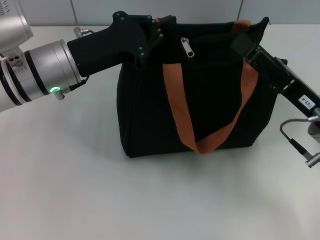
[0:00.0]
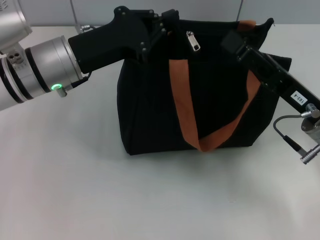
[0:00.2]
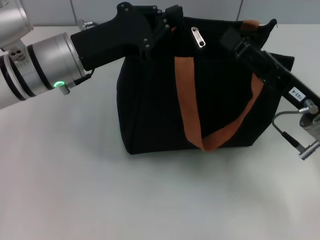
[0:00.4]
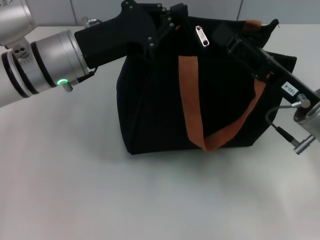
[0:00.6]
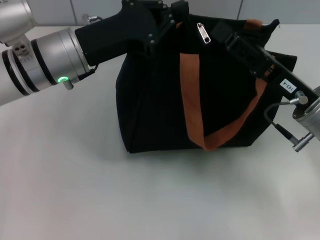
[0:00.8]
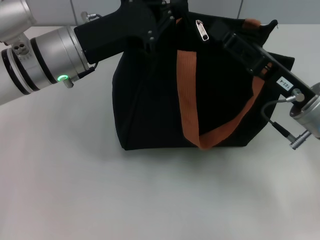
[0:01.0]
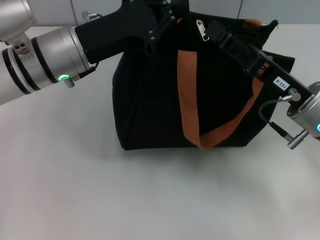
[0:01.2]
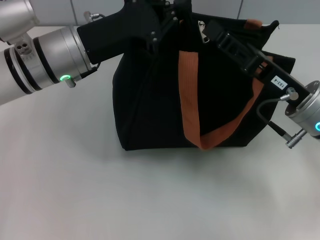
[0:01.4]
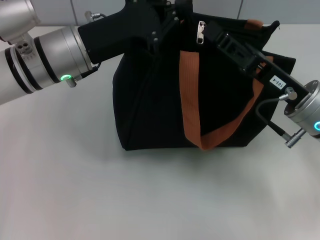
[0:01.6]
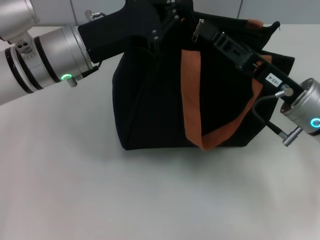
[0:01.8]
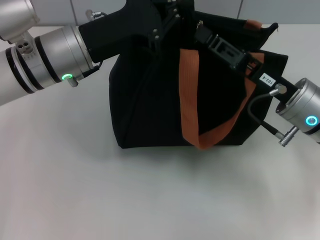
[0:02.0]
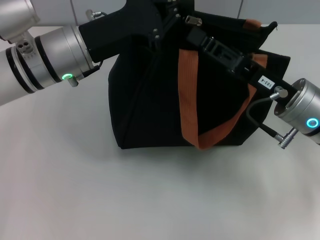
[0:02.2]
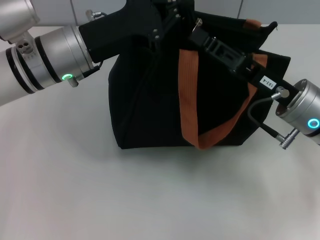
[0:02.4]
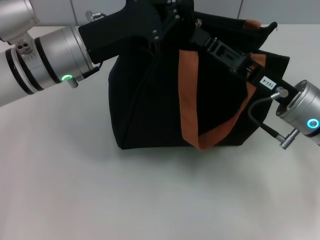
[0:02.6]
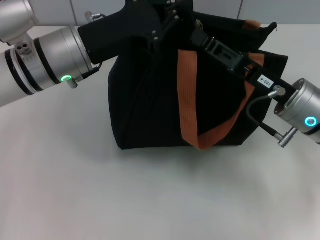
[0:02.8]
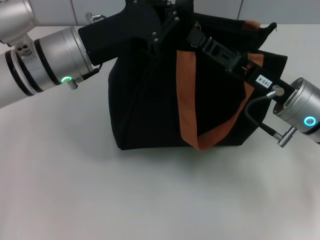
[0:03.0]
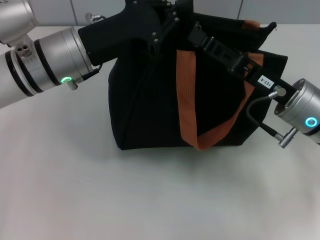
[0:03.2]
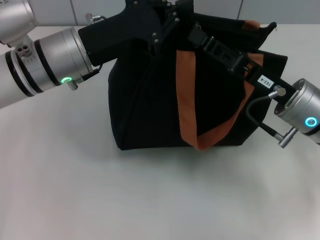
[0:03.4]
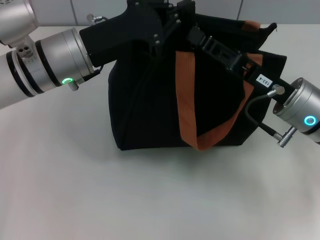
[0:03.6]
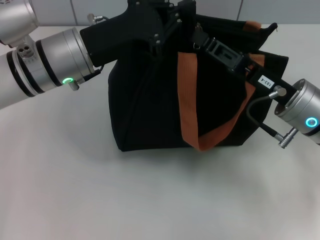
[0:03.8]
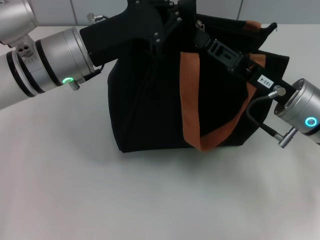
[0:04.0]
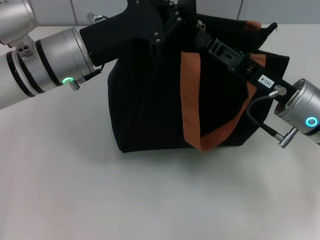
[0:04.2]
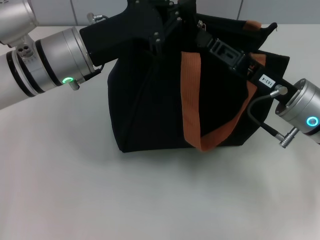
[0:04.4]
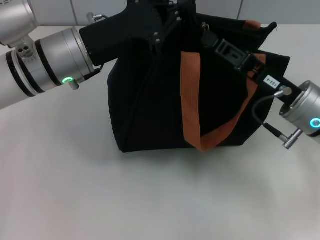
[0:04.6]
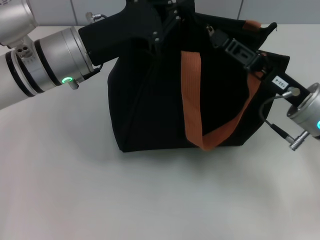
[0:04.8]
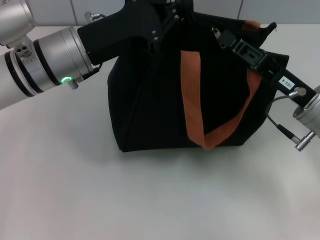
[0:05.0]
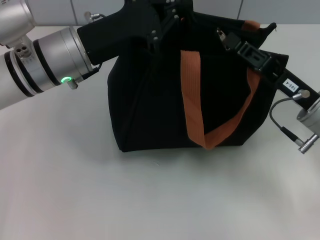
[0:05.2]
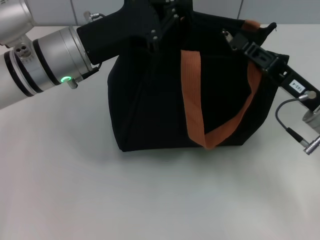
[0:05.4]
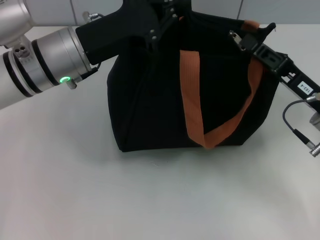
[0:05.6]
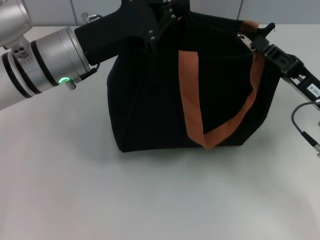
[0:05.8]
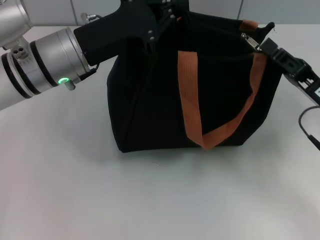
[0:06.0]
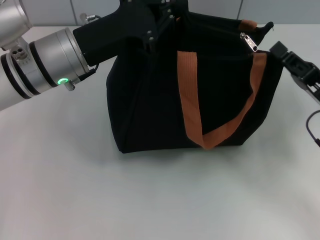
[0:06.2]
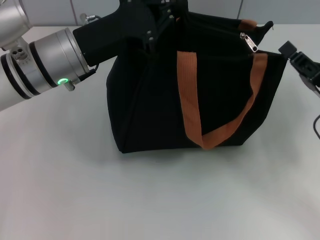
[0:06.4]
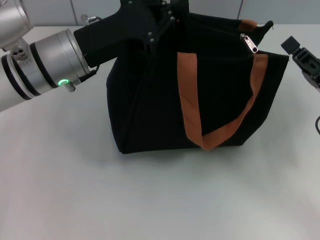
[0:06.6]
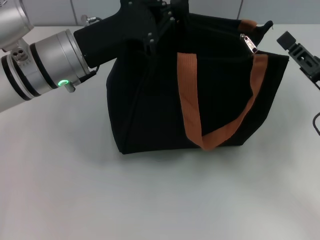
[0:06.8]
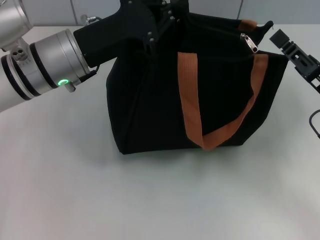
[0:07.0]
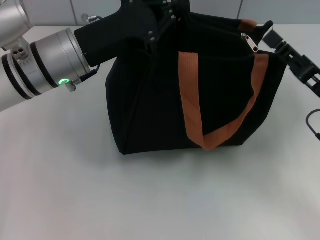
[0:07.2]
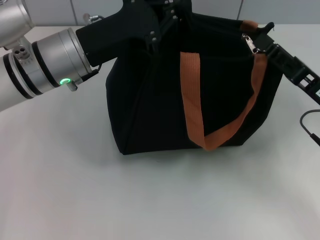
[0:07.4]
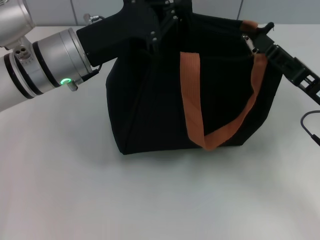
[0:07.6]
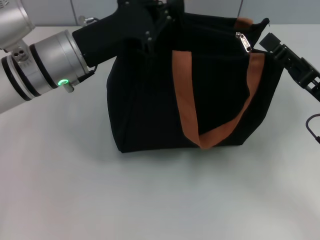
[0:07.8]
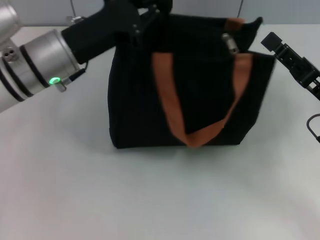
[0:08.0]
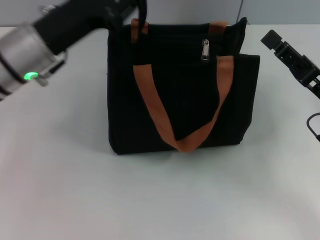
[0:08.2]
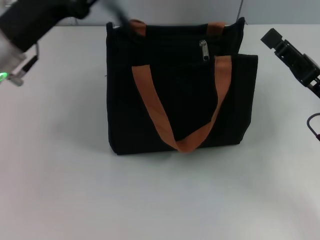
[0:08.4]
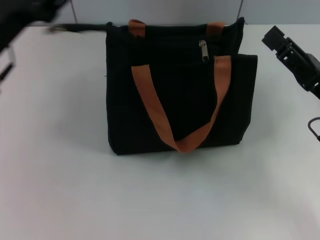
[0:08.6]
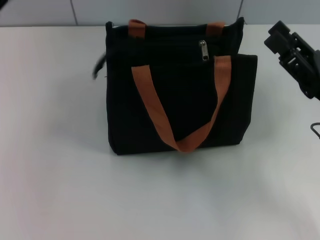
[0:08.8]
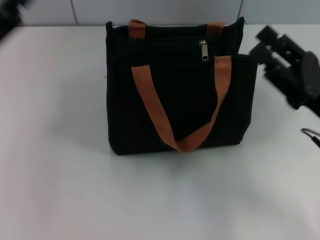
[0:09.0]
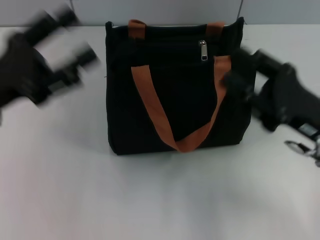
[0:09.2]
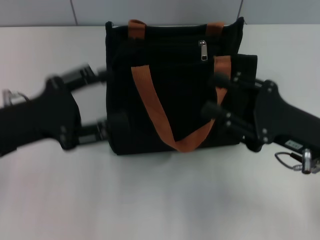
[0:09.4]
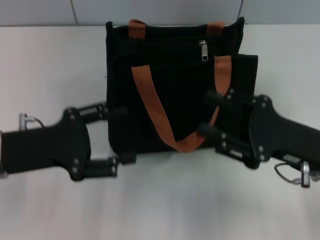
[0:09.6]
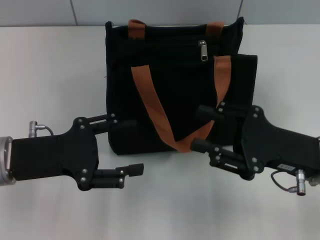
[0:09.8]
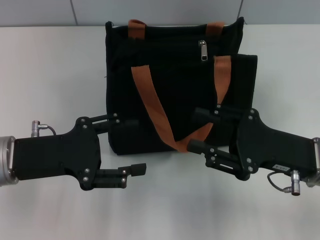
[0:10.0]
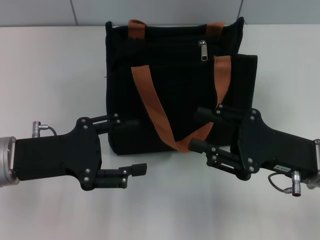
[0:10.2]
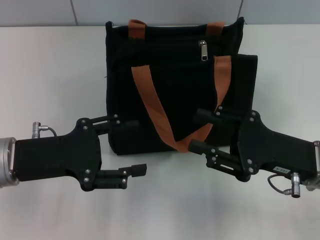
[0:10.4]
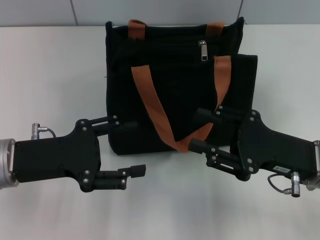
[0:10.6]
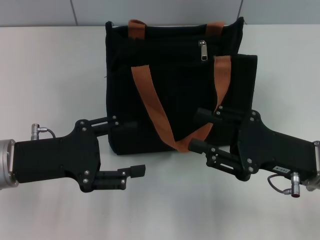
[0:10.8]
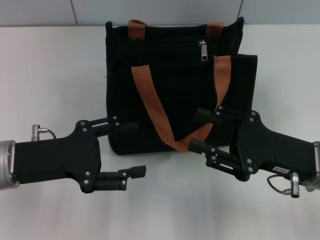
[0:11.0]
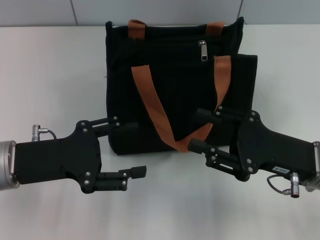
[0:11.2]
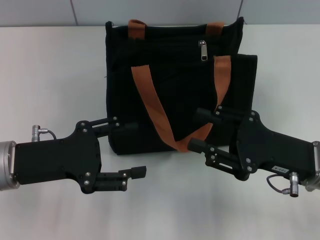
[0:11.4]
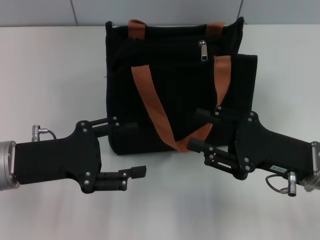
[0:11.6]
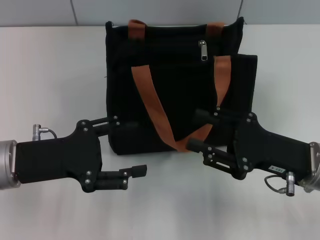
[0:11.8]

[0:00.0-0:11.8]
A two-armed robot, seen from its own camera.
Step, 0:00.0 to 0:06.0: Pull up the zipper with your right hand.
Step, 0:06.2 to 0:08.4: Grab the zipper with your left hand.
0:01.4 to 0:03.0: The grippers move only a little.
0:03.0 to 0:04.4: The right gripper closes.
0:04.4 to 0:06.0: The right gripper shifts roughly 5 cm to the right.
0:06.0 to 0:07.4: The right gripper opens its fingers.
0:07.4 to 0:08.8: The left gripper is displaced to the left and backward by approximately 15 cm, and opens up.
0:08.8 to 0:10.4: The left gripper heads downward, covering some 5 cm.
0:10.4 to 0:11.8: Neither gripper changes place.
